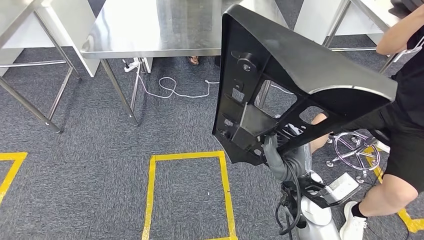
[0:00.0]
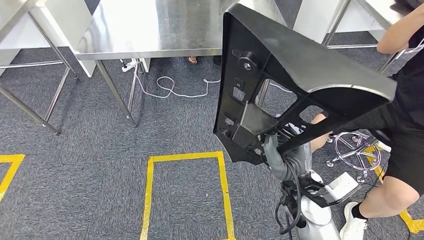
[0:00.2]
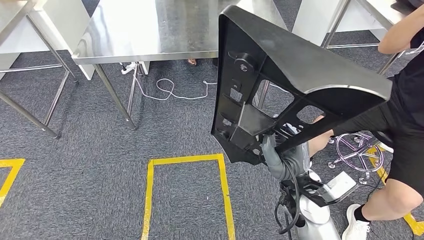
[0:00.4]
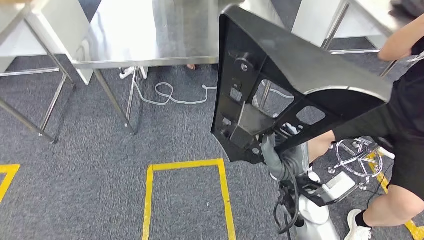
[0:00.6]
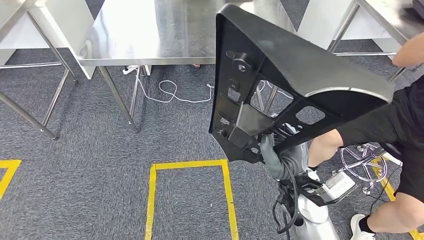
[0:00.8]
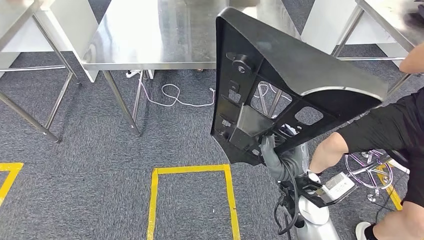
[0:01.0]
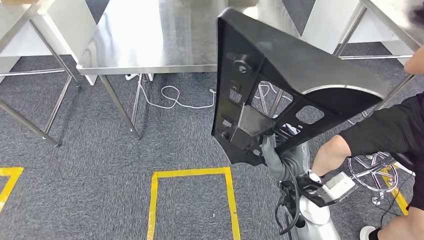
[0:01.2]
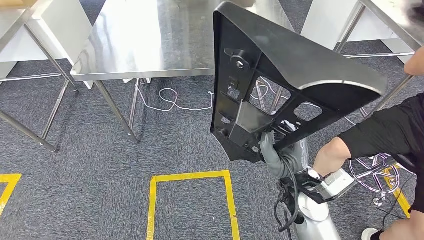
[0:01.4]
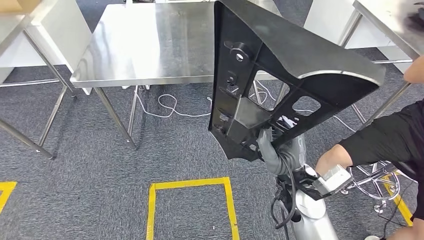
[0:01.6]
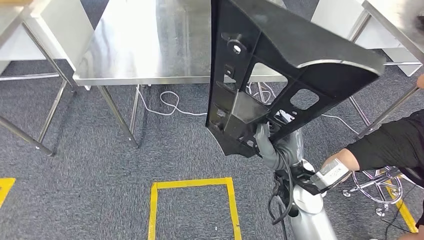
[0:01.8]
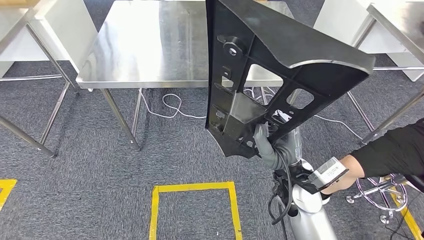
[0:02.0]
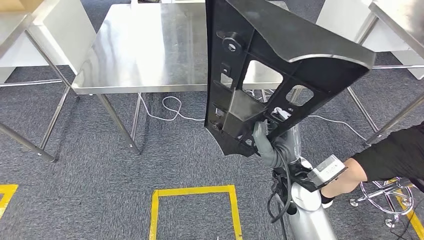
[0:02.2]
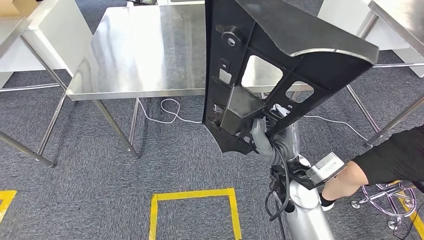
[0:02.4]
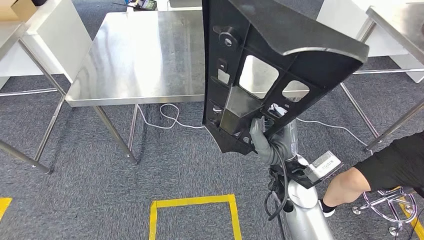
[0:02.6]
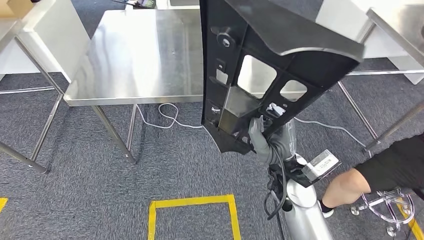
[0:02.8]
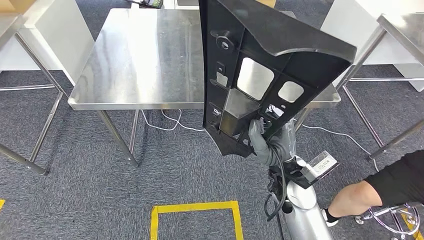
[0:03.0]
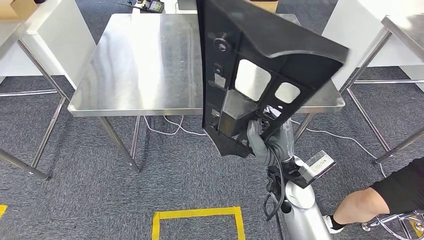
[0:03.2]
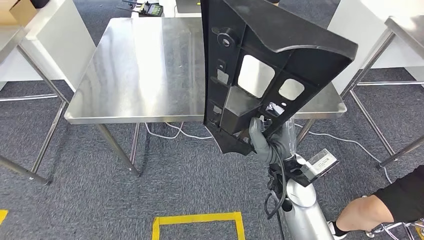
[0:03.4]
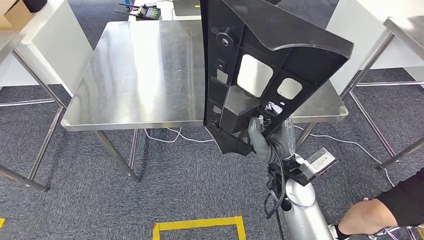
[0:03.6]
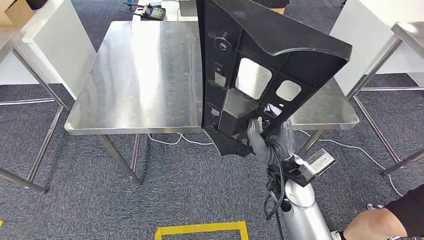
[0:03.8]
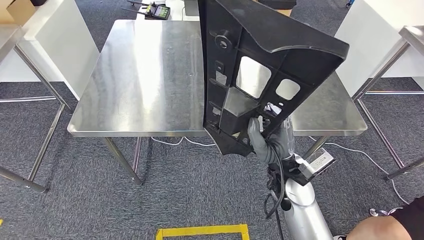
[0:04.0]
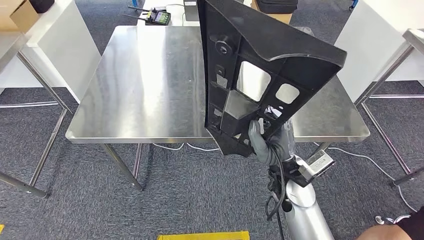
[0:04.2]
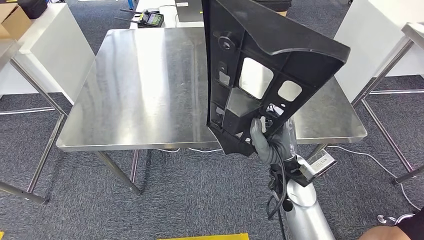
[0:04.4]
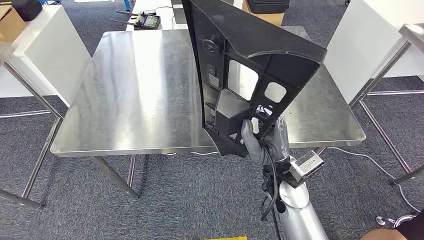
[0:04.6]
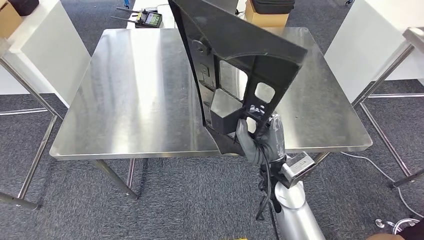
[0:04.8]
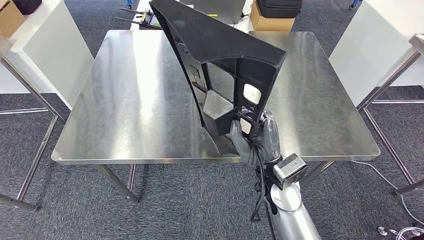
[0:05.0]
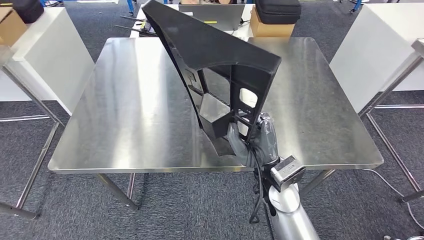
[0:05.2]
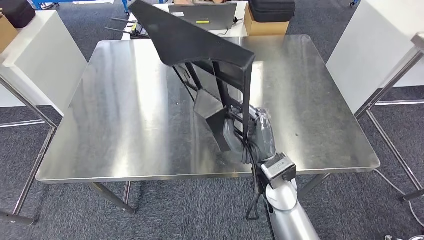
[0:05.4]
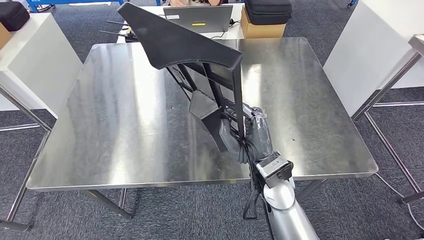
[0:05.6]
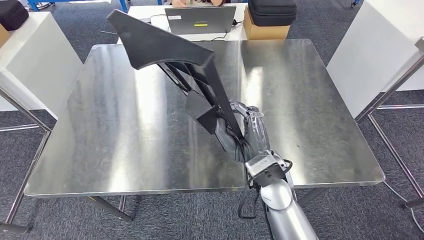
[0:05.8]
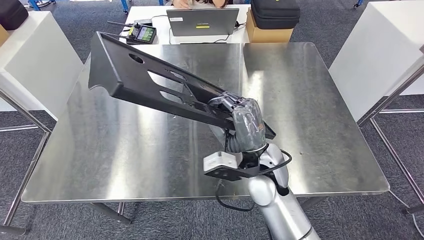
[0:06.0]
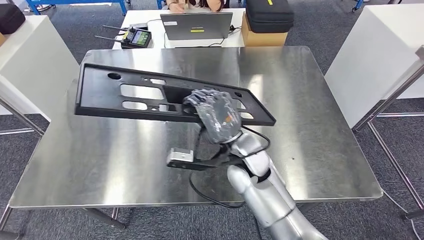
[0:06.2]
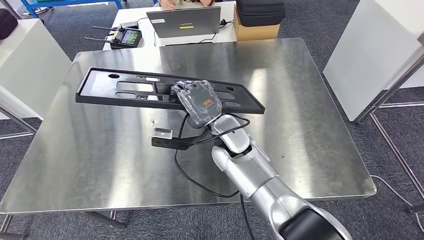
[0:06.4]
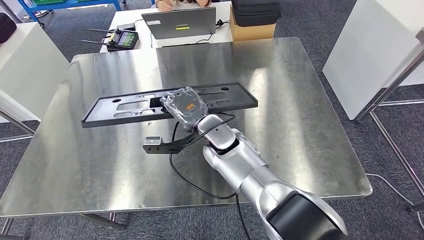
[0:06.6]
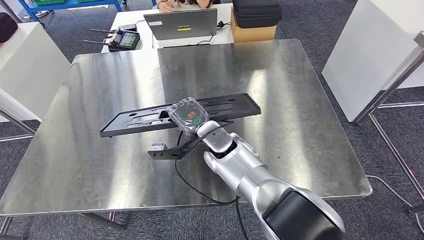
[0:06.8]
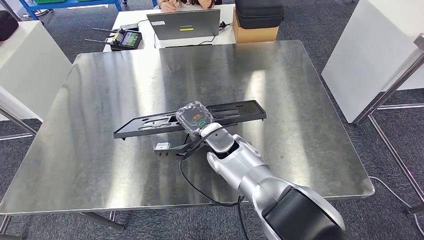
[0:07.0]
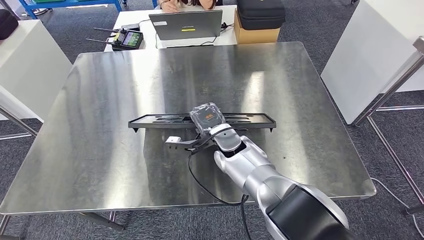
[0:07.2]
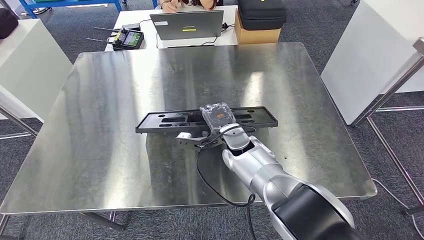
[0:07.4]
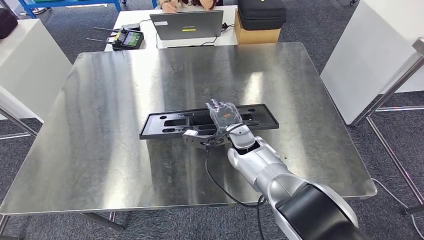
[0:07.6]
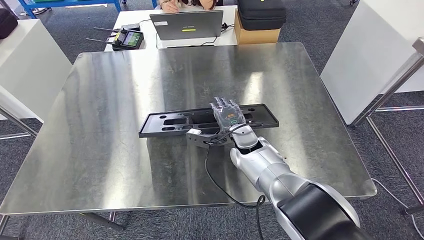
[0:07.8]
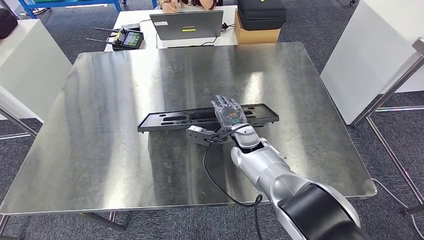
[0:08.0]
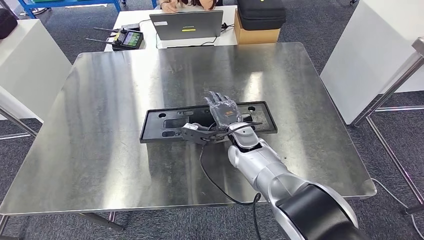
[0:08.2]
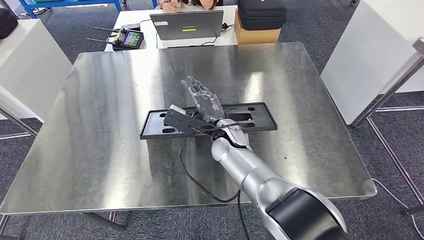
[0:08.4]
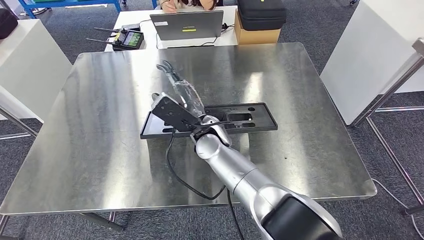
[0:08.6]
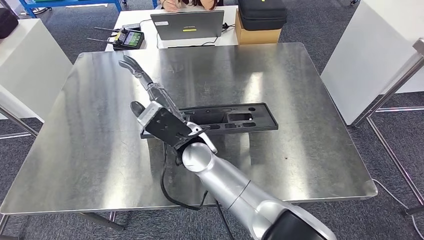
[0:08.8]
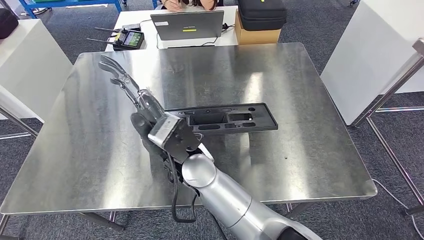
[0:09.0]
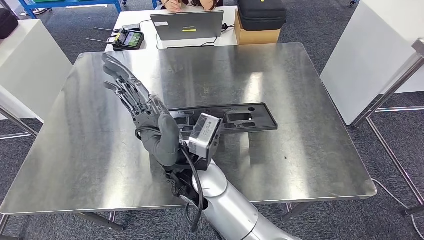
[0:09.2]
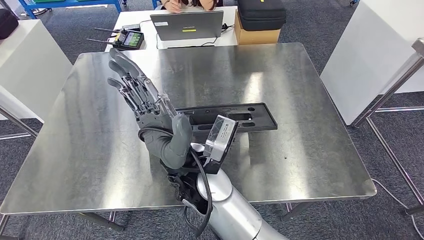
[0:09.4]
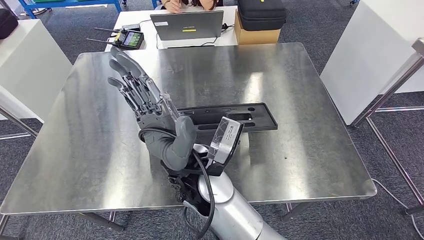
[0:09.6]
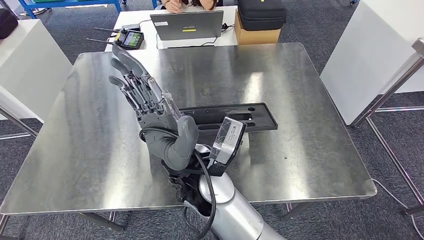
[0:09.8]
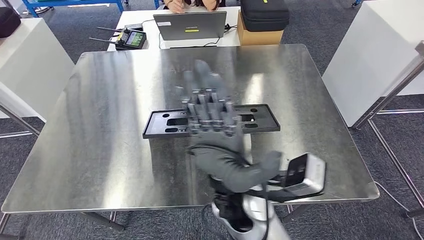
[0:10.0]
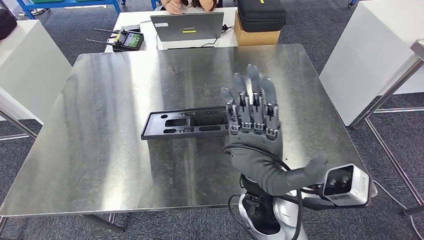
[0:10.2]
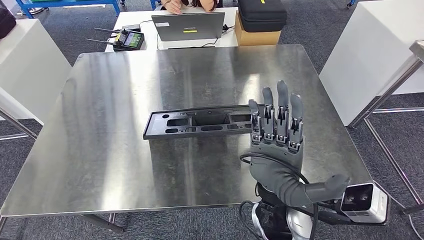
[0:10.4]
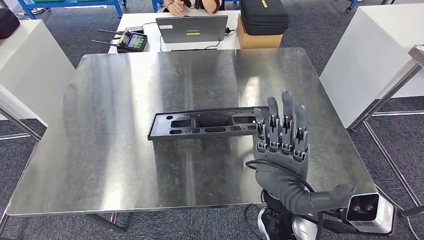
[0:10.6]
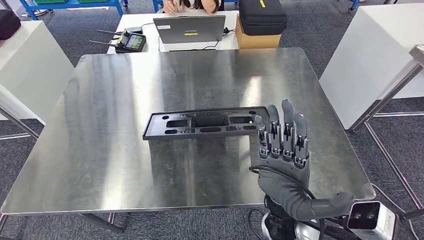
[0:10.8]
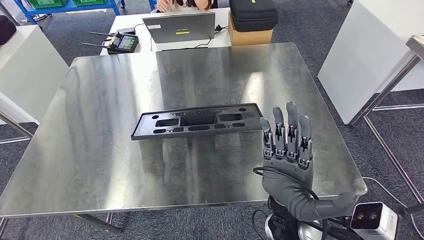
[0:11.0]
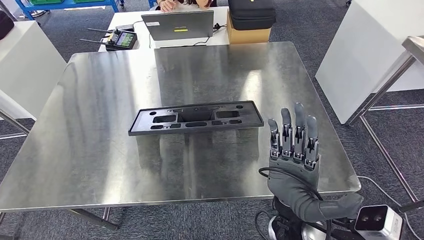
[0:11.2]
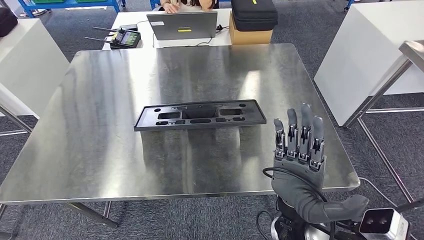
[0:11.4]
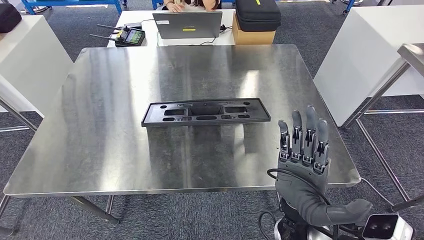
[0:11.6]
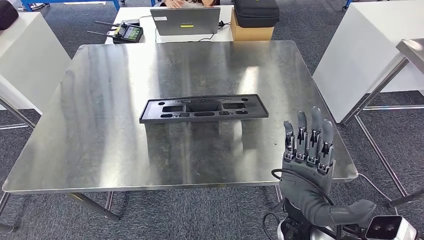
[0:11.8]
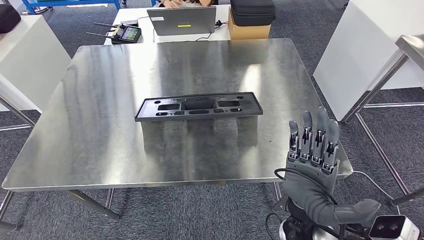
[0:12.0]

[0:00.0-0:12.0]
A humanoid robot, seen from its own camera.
Step, 0.0 to 3.6 s: Move the large material to the workbench.
7.6 to 9.0 s: The right hand moves to the left, backward and upward, roughly 20 cm.

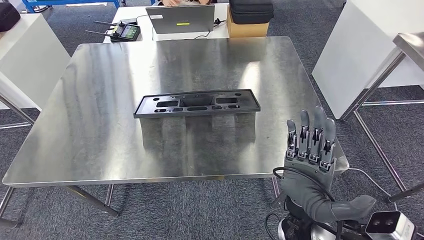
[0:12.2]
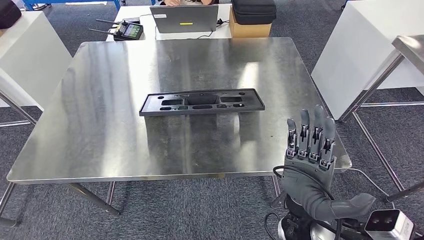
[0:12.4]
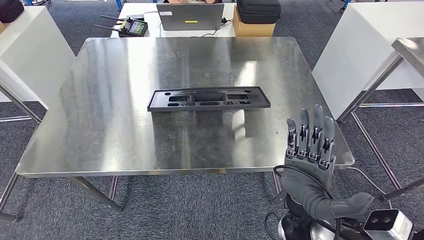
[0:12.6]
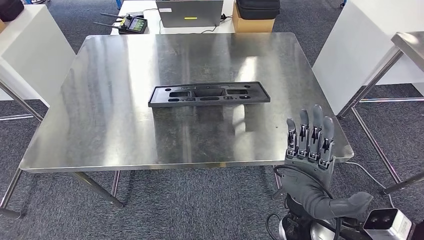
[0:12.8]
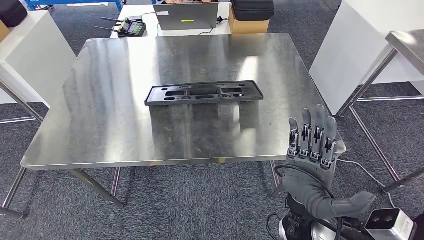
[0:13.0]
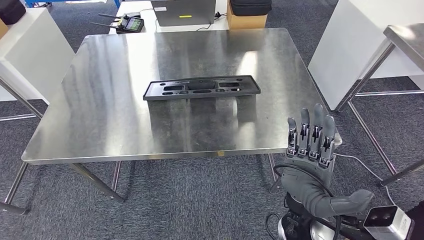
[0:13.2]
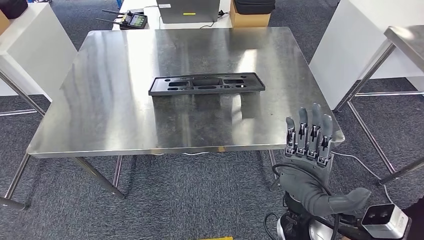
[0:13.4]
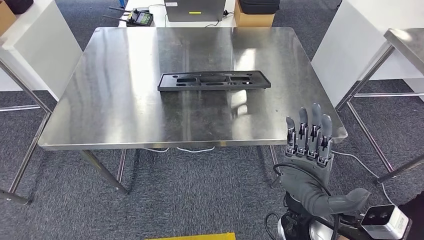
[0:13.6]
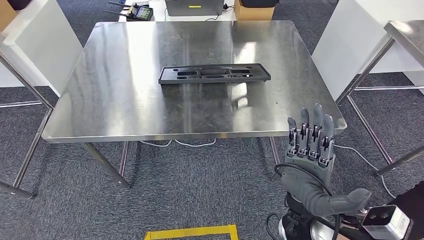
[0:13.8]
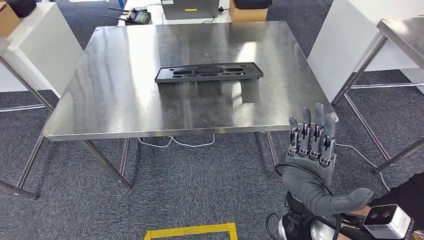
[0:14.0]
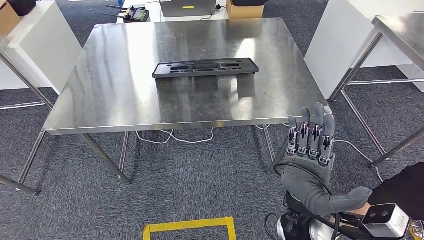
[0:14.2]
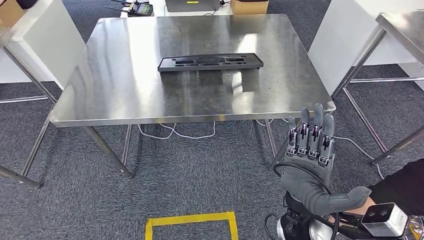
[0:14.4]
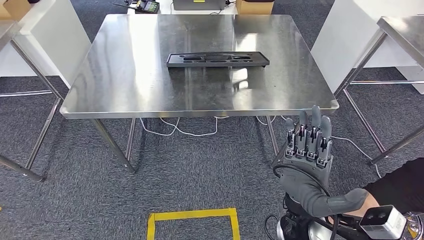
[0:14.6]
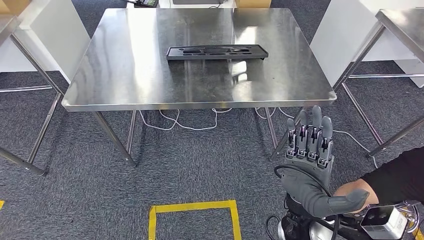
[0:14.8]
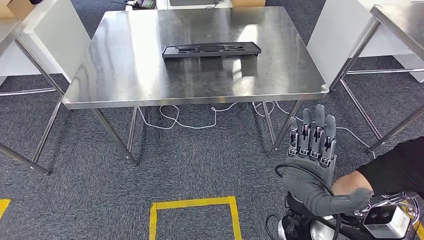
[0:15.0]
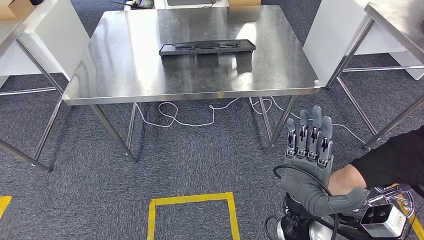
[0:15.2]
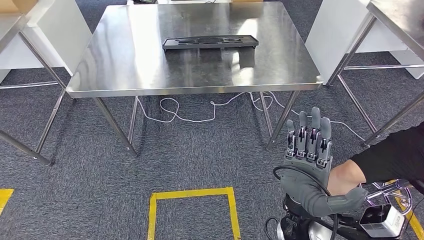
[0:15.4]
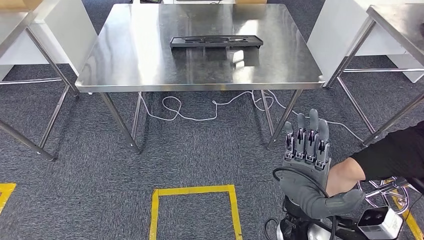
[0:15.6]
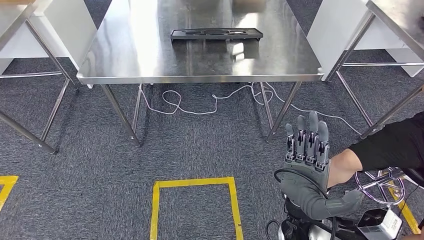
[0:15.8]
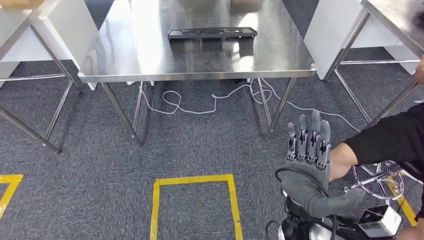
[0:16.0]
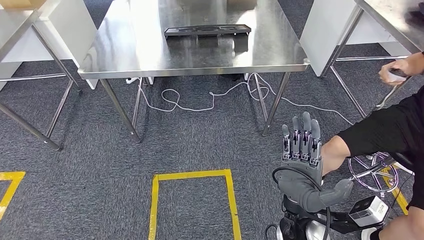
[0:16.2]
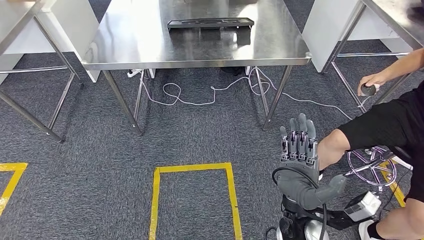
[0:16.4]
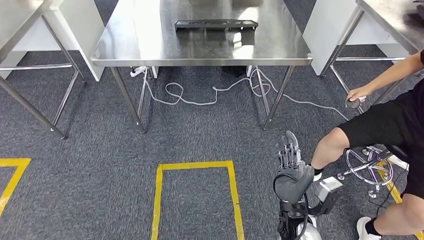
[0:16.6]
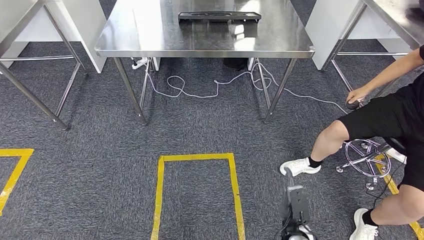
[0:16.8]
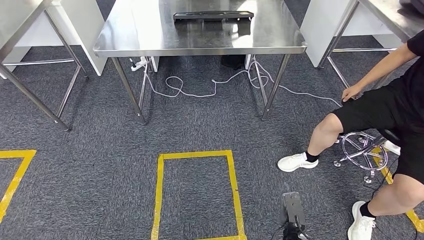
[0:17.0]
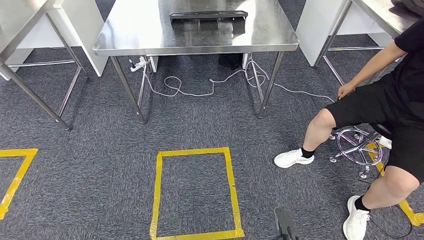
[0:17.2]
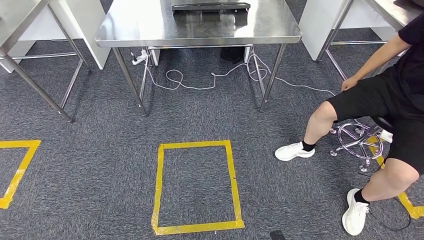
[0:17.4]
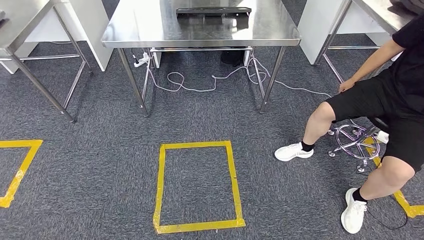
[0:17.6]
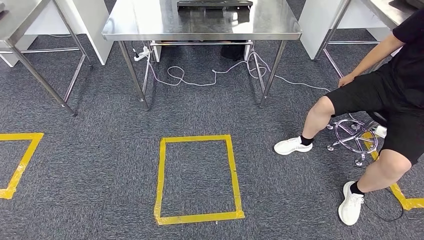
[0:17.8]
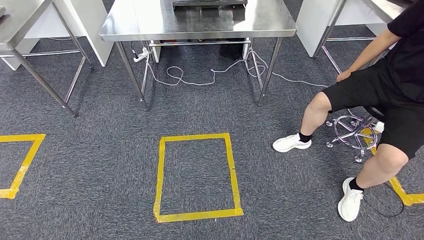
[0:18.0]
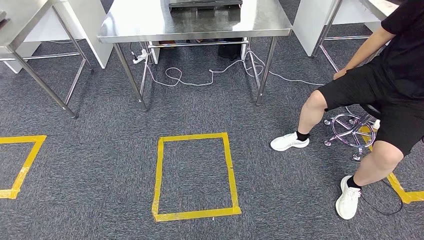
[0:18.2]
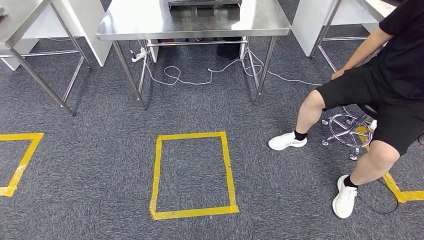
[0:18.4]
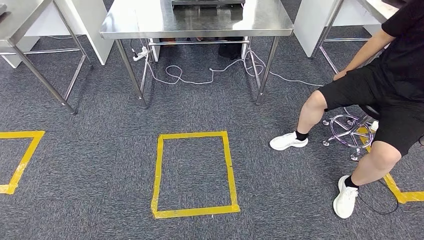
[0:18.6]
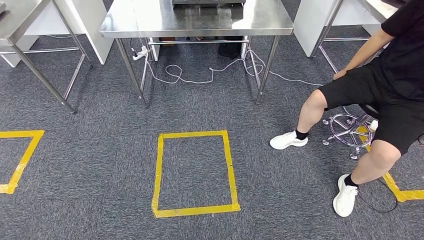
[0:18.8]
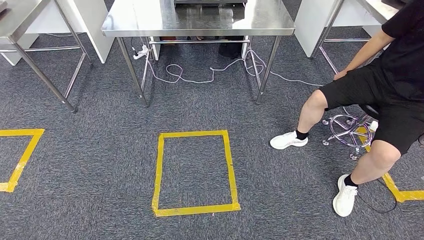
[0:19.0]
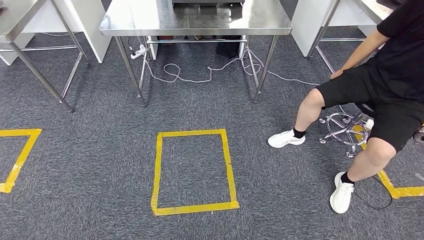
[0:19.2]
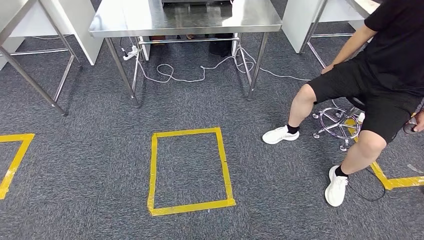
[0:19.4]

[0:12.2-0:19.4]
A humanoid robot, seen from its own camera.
Step, 12.2 to 15.8 s: Insert the large material into the corresponding slot on the workbench.
